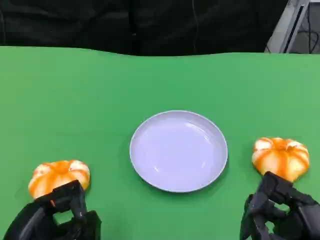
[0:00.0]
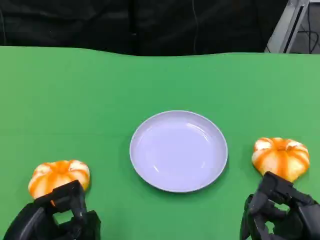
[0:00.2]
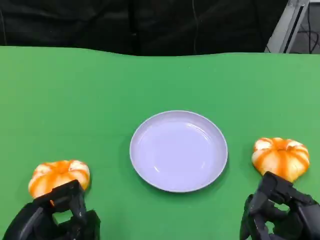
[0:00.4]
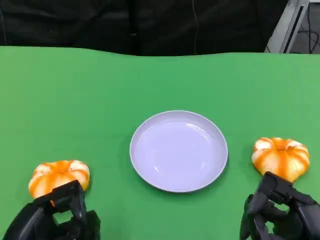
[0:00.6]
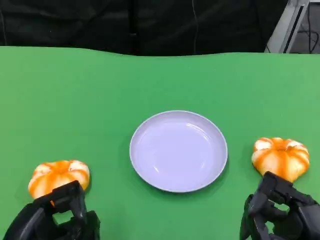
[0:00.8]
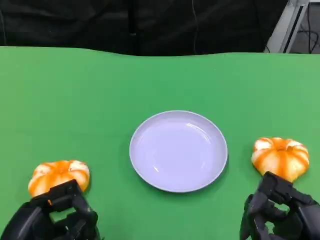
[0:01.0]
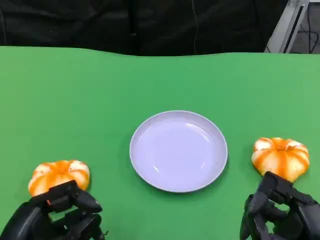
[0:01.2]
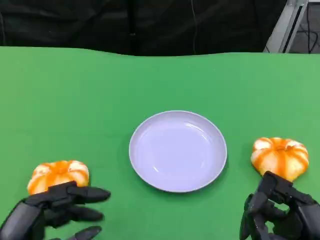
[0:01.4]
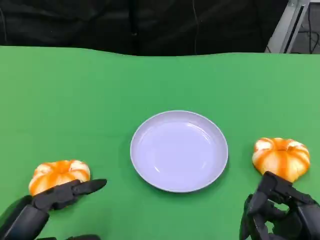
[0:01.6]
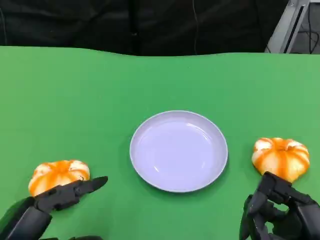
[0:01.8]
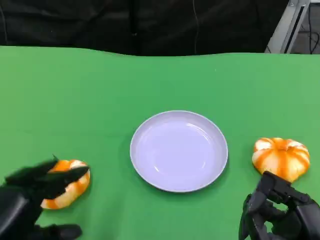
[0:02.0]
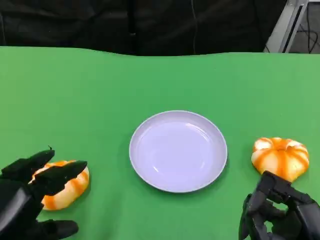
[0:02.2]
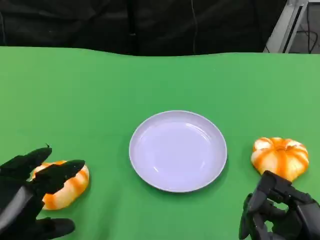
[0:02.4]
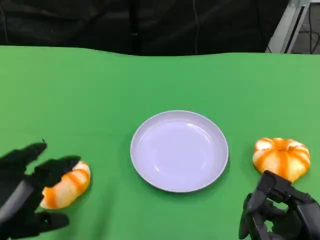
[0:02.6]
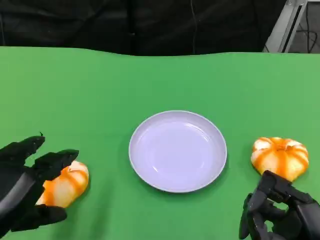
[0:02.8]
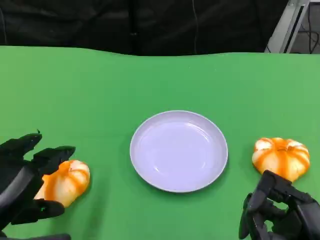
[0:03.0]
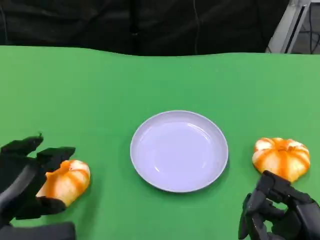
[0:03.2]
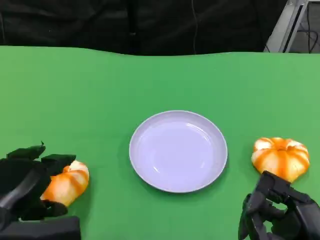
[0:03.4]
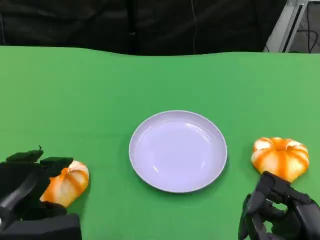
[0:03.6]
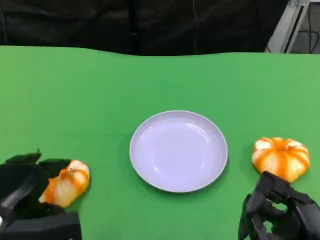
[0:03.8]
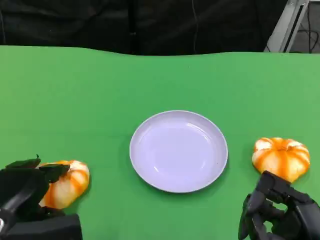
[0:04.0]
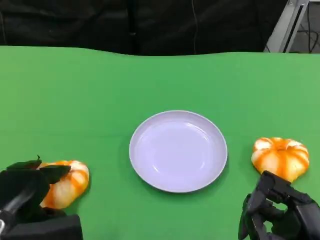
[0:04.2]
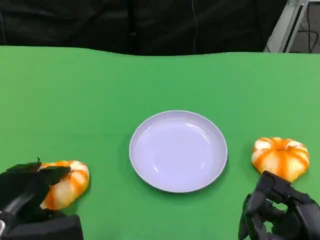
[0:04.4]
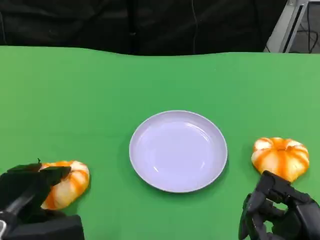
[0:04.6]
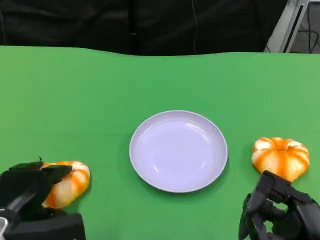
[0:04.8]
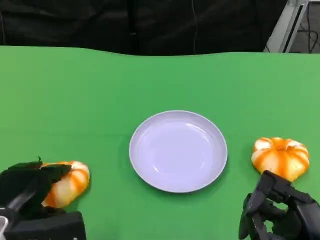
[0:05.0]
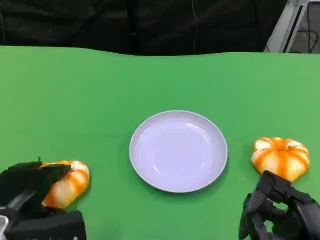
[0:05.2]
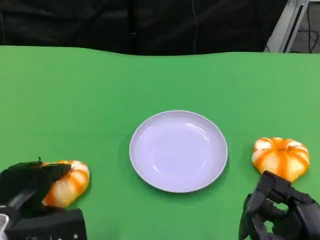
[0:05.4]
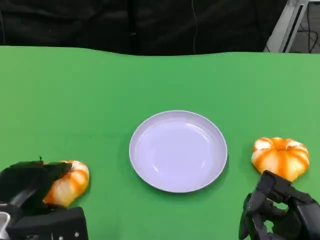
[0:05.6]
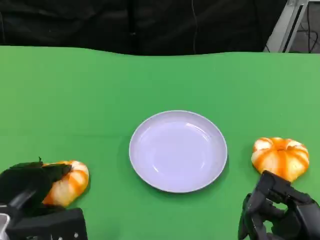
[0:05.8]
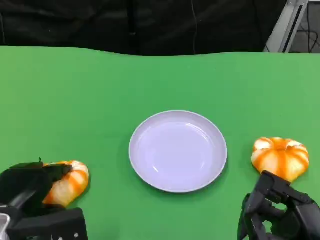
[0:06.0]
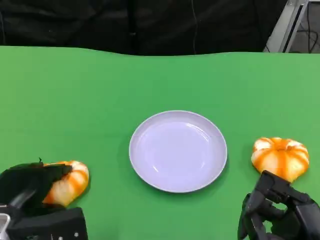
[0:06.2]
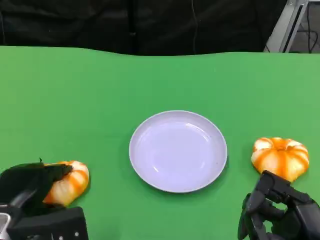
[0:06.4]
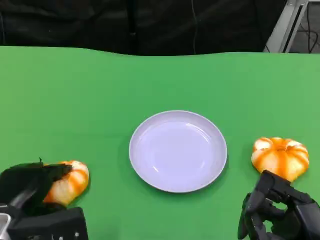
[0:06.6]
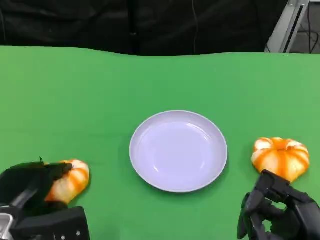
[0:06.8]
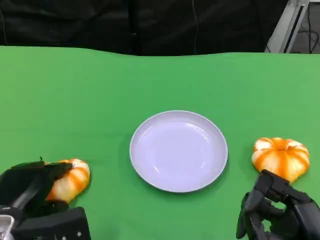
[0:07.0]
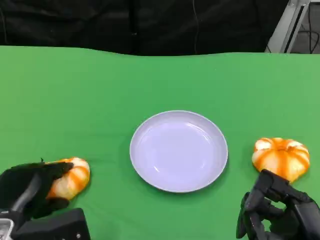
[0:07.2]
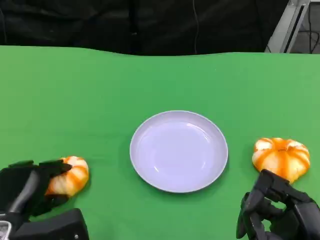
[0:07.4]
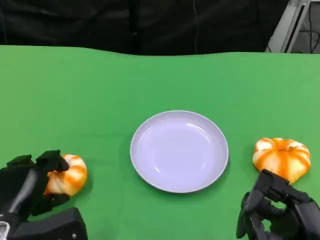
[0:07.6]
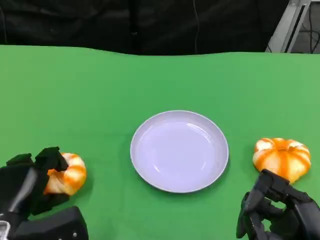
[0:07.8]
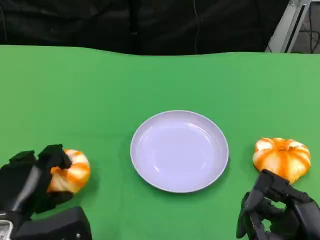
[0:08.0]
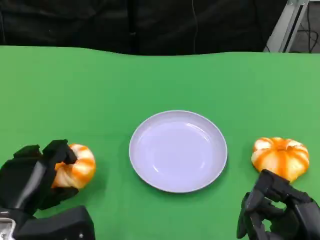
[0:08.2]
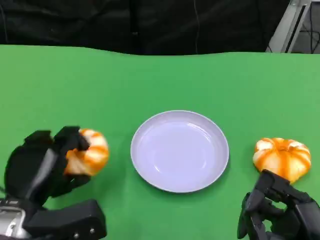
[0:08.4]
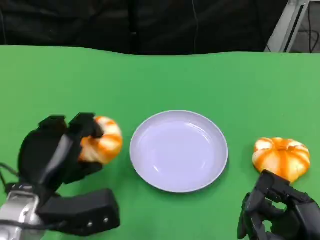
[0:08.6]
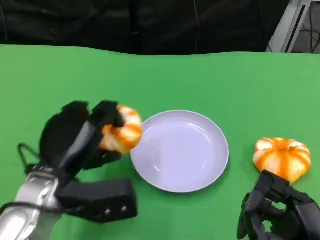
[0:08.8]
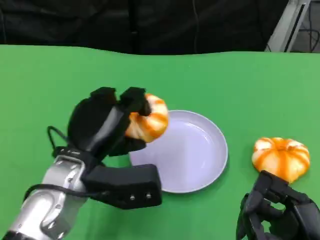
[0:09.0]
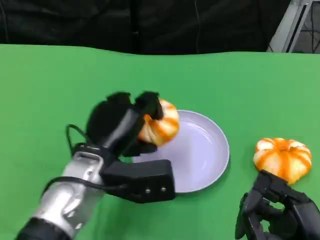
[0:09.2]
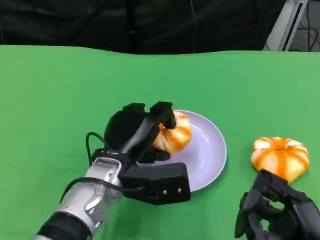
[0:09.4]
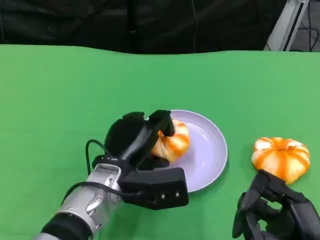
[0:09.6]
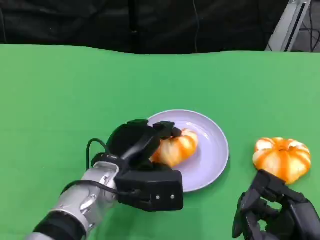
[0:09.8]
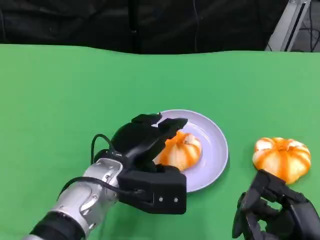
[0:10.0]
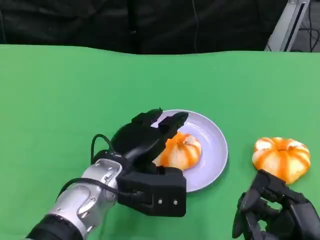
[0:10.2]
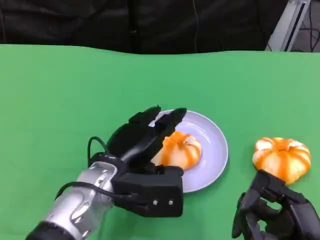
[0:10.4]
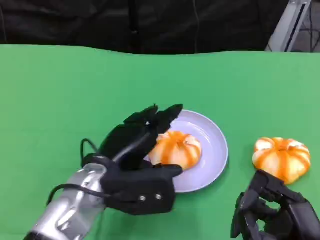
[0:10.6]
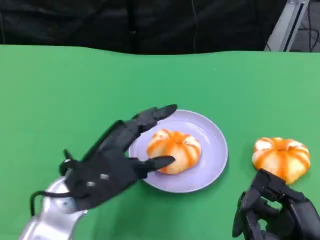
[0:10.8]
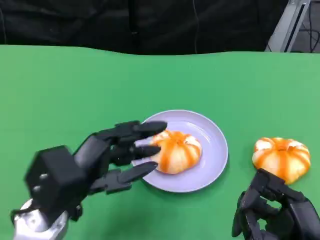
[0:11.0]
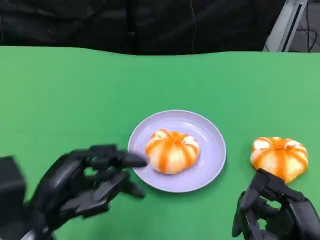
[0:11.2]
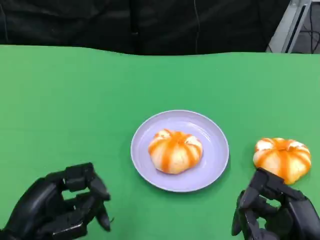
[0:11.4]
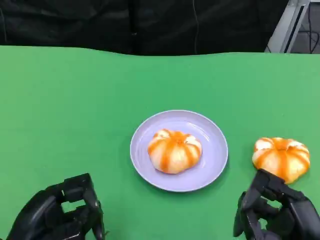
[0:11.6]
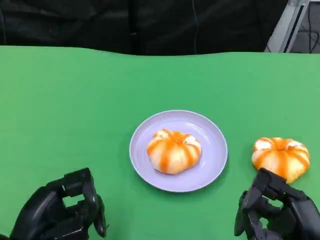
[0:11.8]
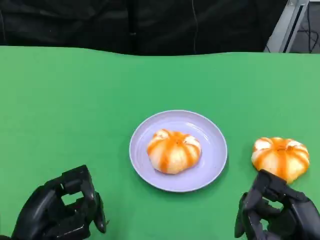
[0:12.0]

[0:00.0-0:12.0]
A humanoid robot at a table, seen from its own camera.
Task of the whole recording: Grasp the bread from the table and place it into the plate.
0:03.0 to 0:04.4: The left hand shifts roughly 5 cm downward.
0:04.4 to 0:06.0: Neither hand changes place.
0:06.0 to 0:07.6: There are only small adjustments of the hands.
0:07.6 to 0:09.0: The left hand shifts about 15 cm to the right, upward and forward.
0:10.4 to 0:12.0: The left hand heads to the left and backward, covering roughly 15 cm.

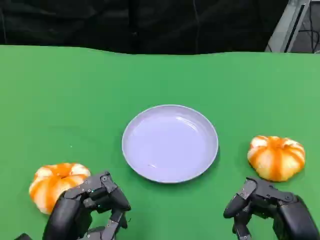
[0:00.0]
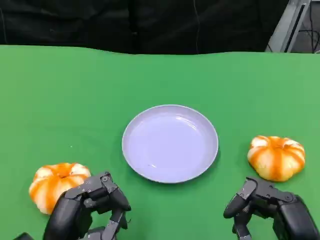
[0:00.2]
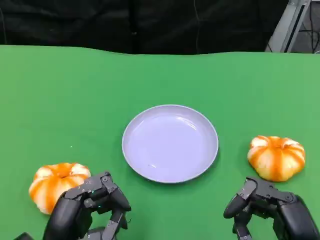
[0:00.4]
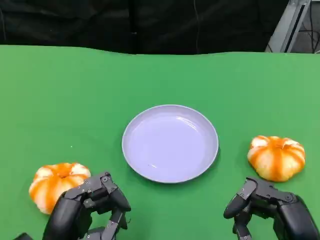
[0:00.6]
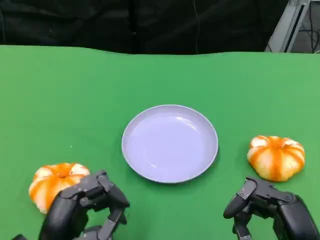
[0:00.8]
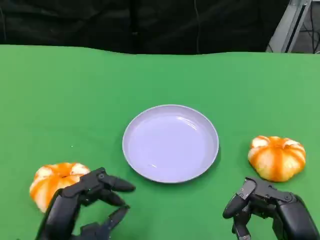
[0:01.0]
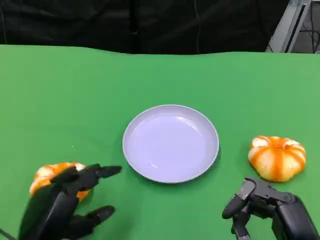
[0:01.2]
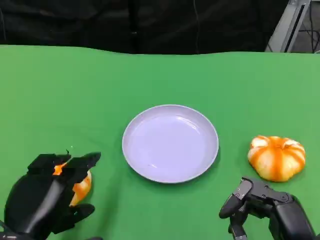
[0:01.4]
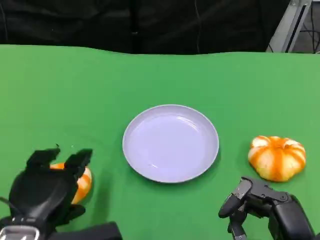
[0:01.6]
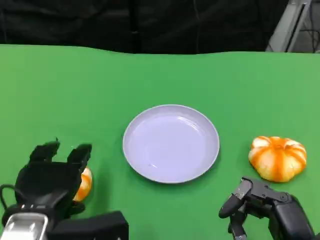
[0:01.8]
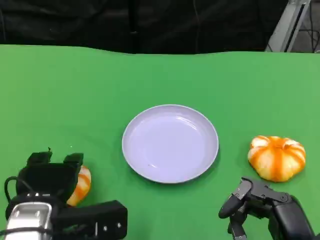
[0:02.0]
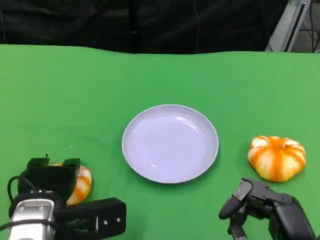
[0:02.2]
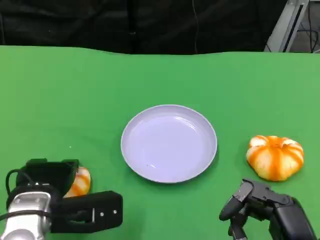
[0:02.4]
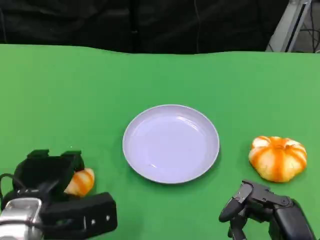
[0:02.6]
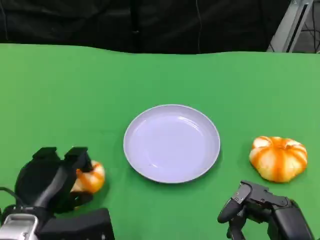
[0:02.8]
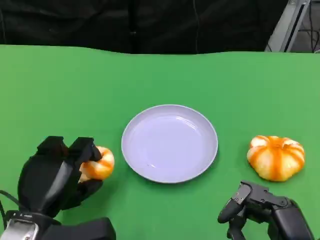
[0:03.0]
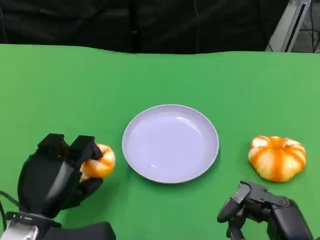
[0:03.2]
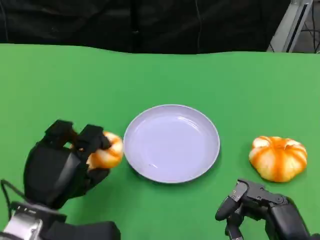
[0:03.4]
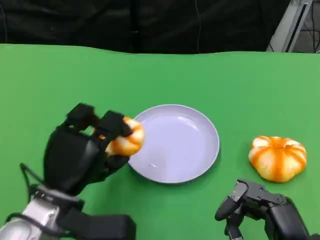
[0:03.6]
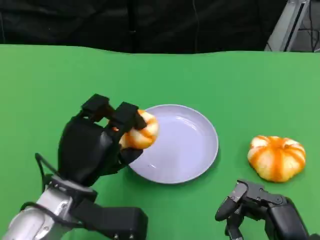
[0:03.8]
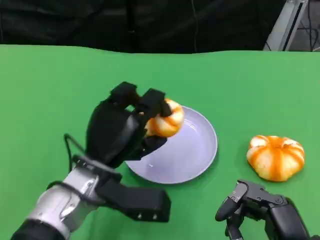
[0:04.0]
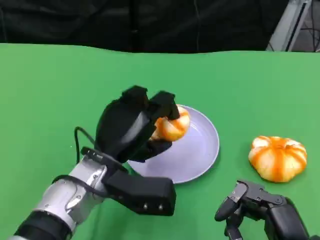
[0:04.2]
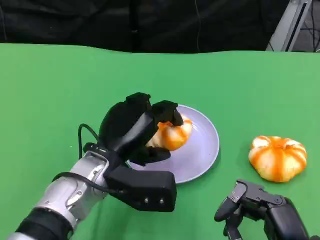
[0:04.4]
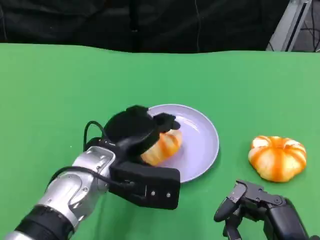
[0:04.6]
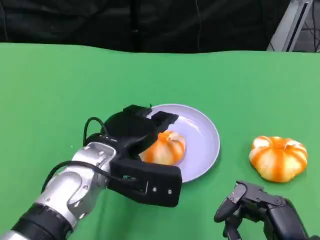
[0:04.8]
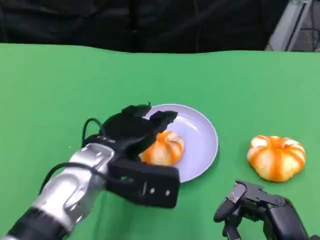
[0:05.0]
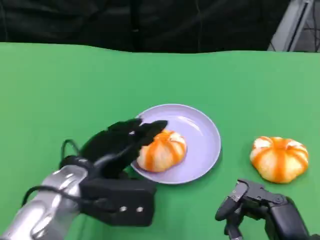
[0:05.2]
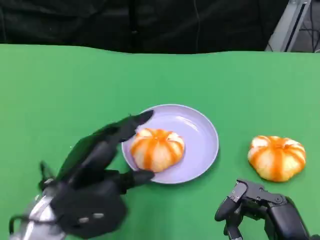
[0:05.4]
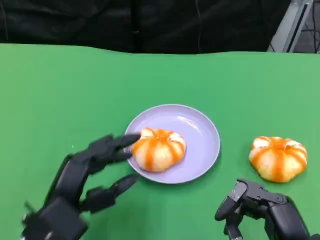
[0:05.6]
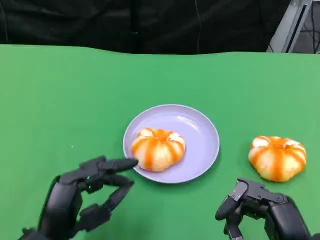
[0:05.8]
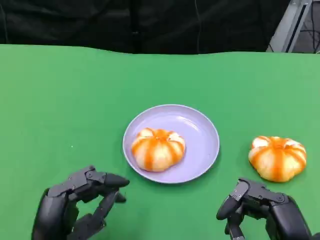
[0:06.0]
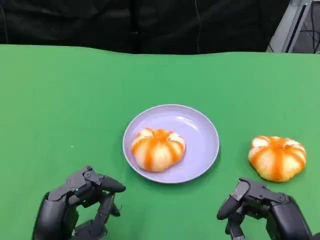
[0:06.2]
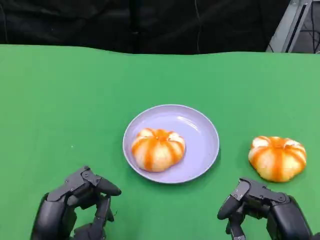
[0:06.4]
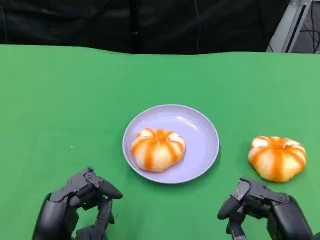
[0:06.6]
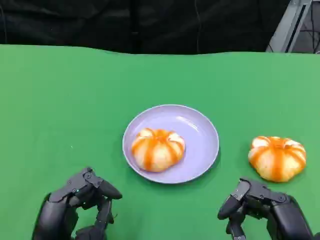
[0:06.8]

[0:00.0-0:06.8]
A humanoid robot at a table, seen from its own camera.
Task of the whole recording: Grasp the bread from the table and place it into the plate.
0:01.4 to 0:02.8: The left hand moves approximately 5 cm.
0:02.8 to 0:04.0: The left hand heads to the right and forward, covering some 10 cm.
0:04.0 to 0:05.4: The left hand is displaced to the left and backward by roughly 10 cm.
0:05.4 to 0:06.8: The left hand shifts roughly 5 cm backward.

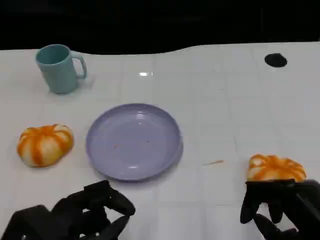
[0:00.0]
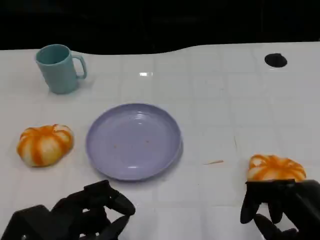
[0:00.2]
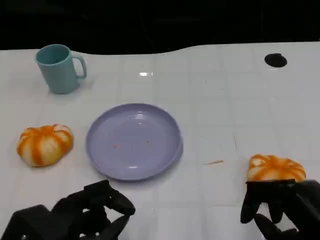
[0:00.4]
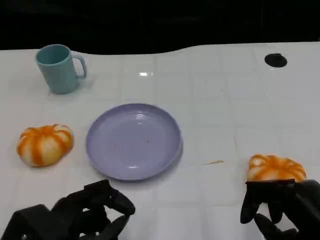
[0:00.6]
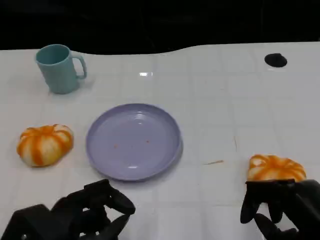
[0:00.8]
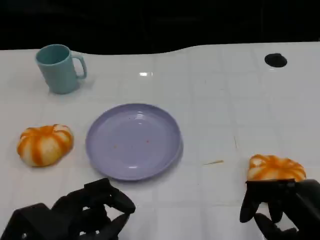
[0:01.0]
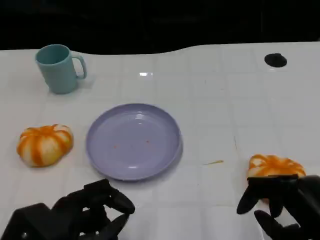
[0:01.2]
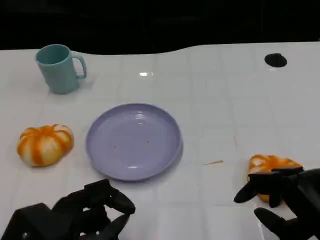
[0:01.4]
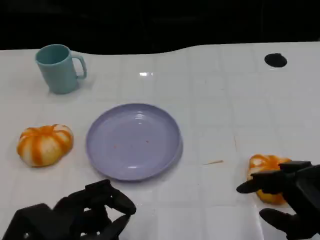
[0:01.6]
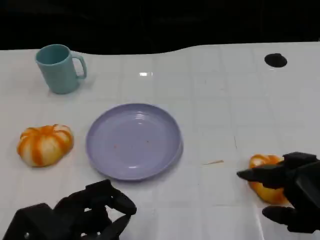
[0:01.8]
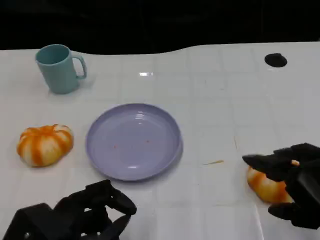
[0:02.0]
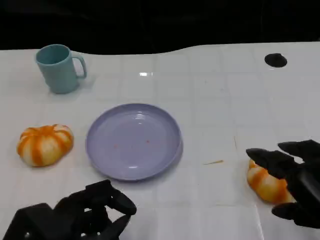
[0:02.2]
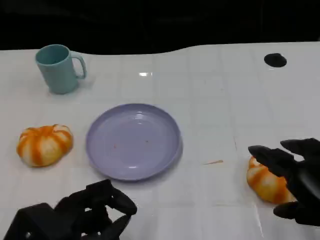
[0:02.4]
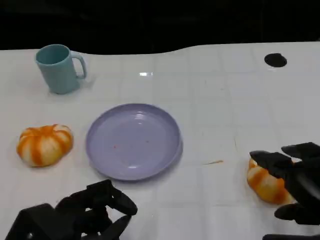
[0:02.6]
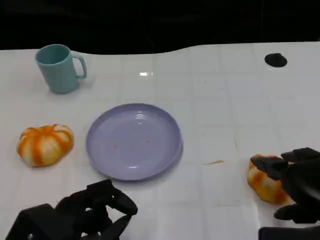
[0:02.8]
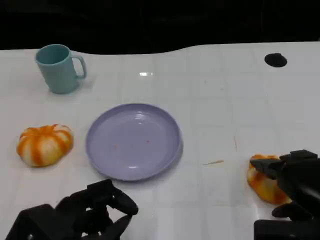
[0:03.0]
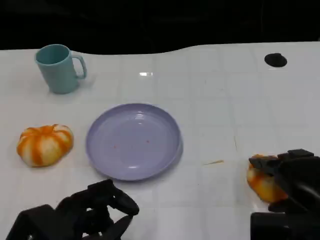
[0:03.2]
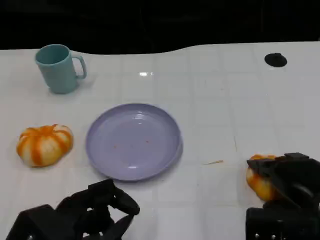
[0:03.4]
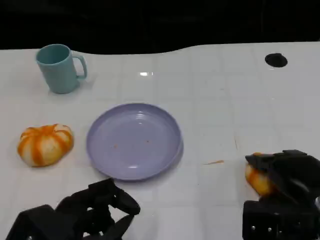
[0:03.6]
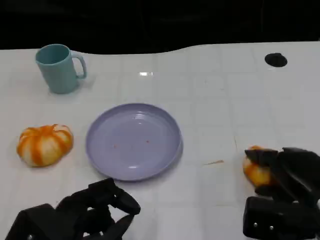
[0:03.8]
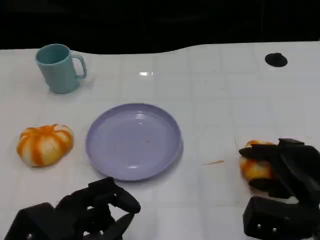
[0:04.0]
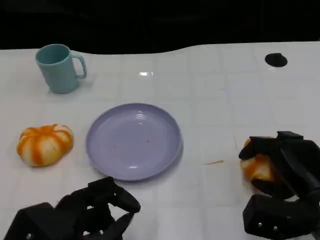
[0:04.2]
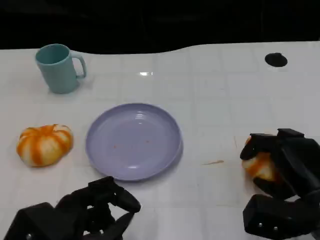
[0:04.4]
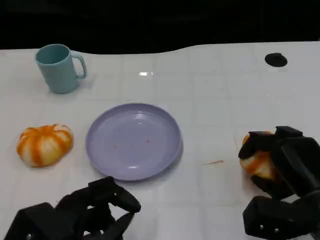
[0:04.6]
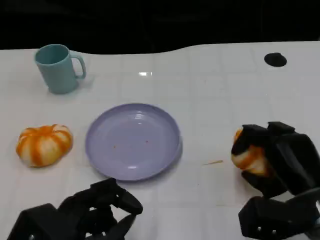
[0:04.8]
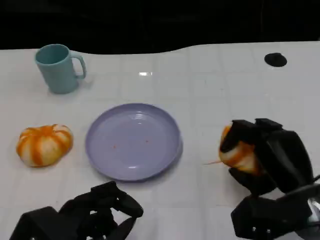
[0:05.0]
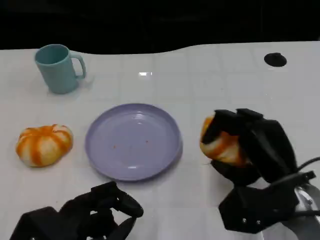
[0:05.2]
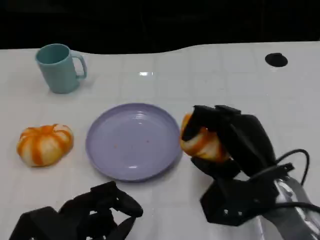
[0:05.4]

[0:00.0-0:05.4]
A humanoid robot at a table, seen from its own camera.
Task of the whole recording: Grasp the bread from the table and place it into the plate.
0:00.0 to 0:01.4: The hands move only a little.
0:02.8 to 0:04.0: The right hand goes some 5 cm downward.
0:04.0 to 0:05.4: The right hand travels to the left by about 10 cm.
